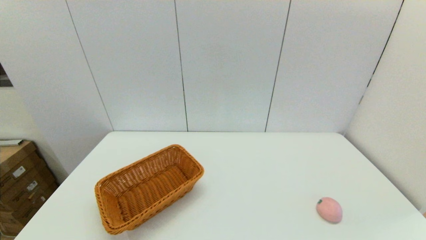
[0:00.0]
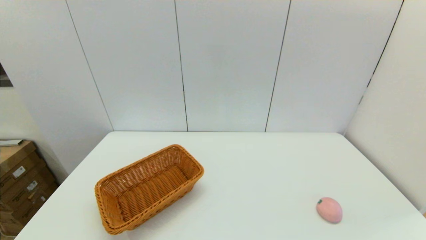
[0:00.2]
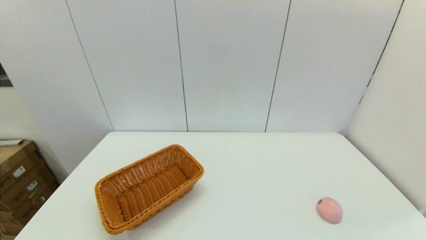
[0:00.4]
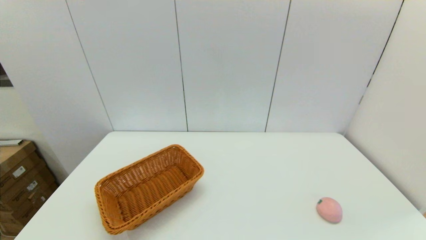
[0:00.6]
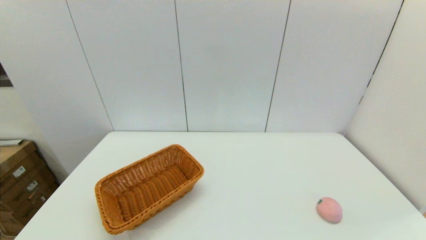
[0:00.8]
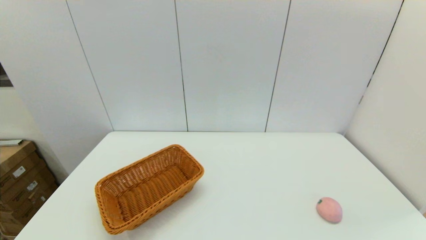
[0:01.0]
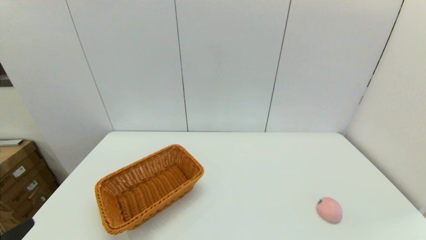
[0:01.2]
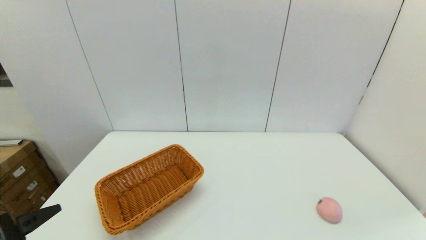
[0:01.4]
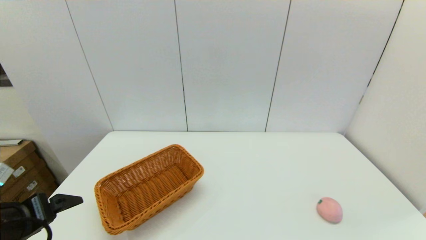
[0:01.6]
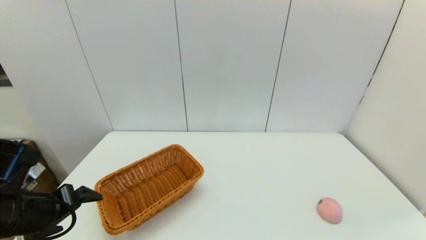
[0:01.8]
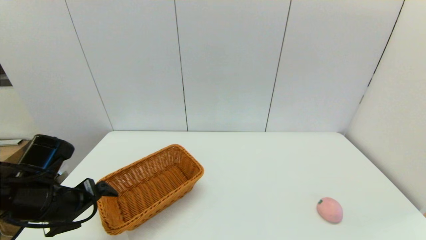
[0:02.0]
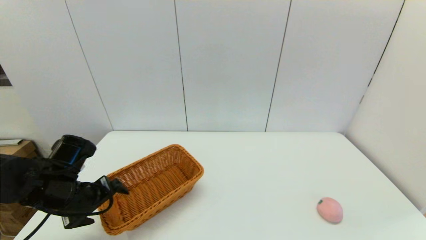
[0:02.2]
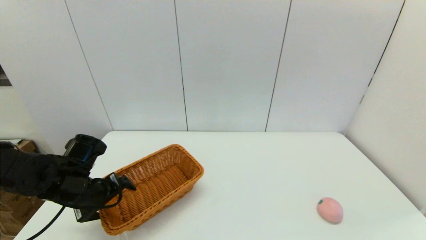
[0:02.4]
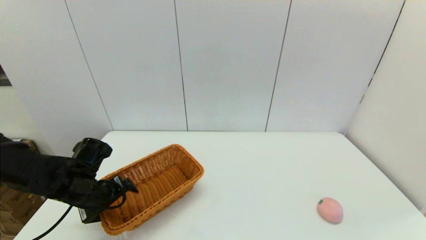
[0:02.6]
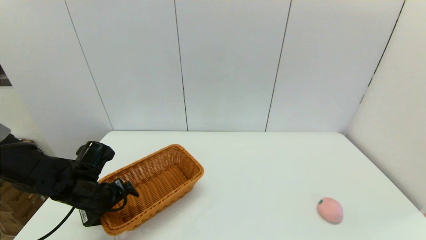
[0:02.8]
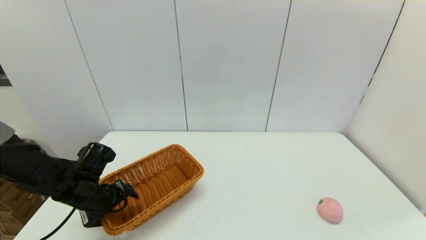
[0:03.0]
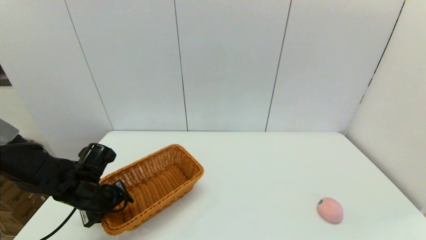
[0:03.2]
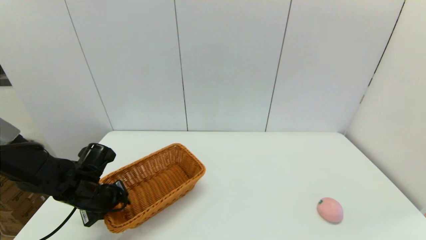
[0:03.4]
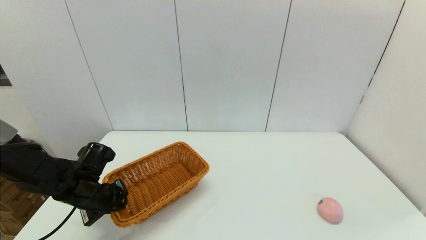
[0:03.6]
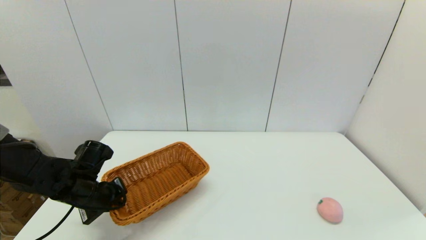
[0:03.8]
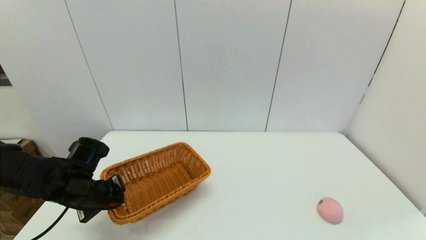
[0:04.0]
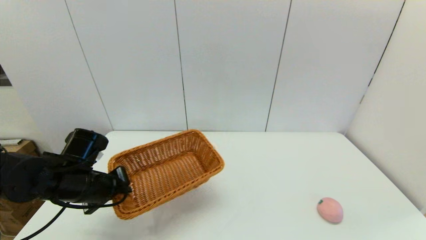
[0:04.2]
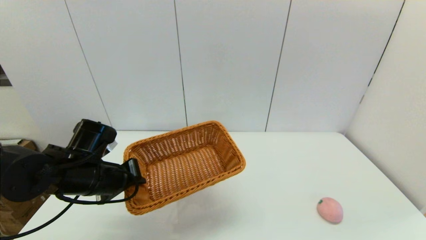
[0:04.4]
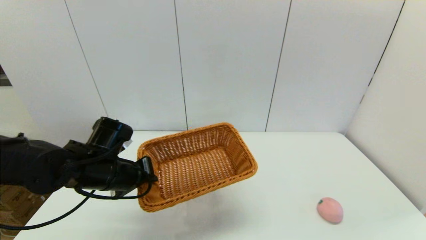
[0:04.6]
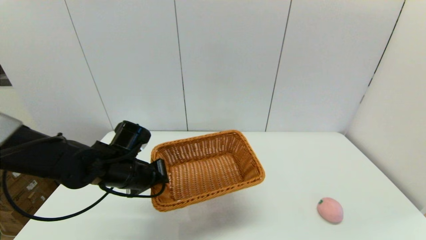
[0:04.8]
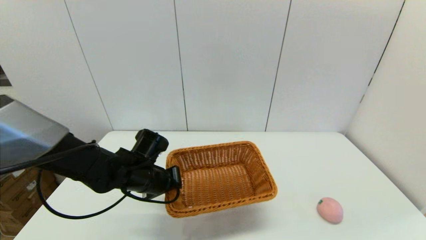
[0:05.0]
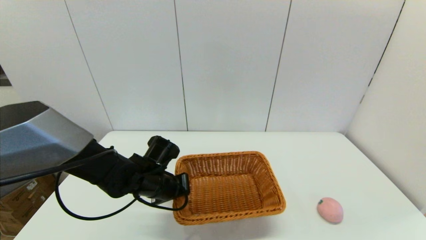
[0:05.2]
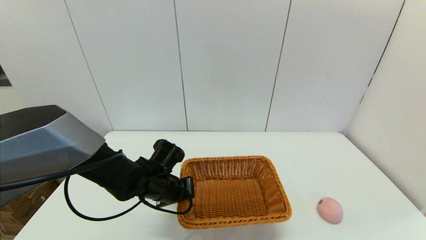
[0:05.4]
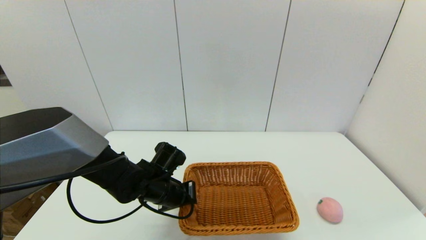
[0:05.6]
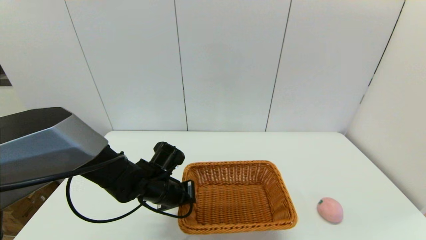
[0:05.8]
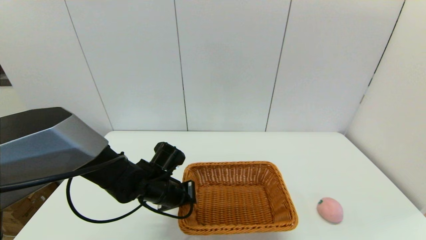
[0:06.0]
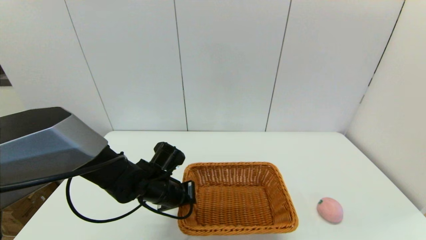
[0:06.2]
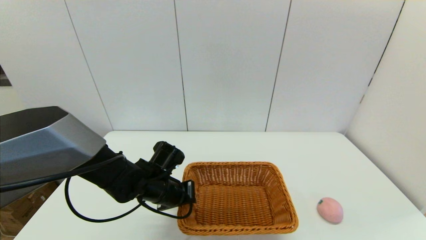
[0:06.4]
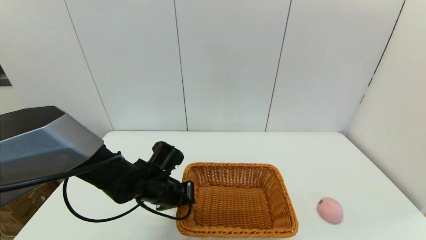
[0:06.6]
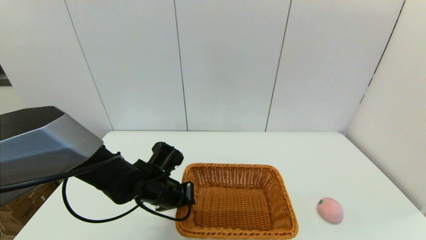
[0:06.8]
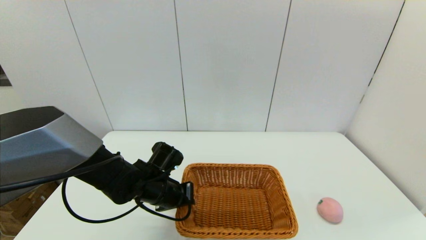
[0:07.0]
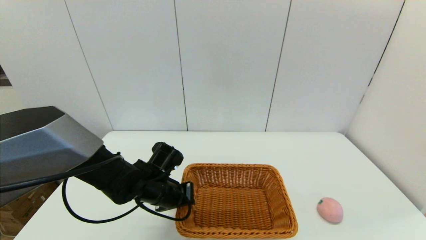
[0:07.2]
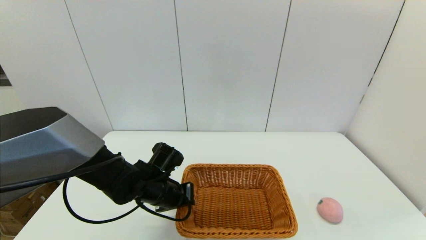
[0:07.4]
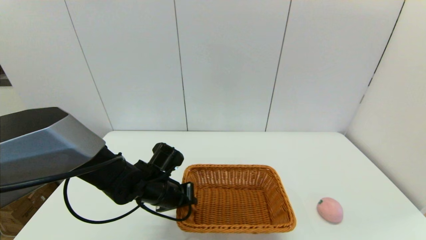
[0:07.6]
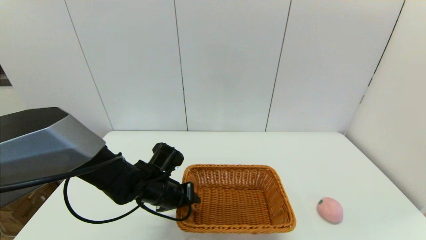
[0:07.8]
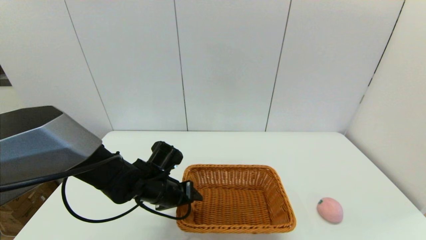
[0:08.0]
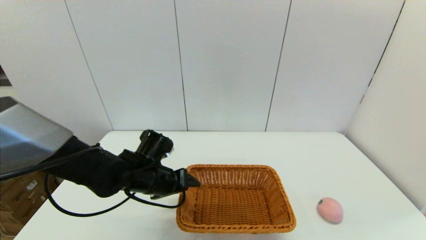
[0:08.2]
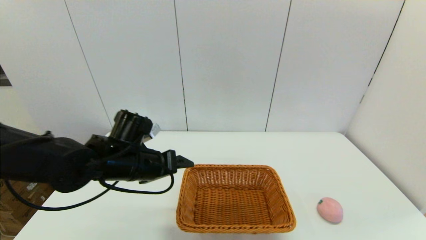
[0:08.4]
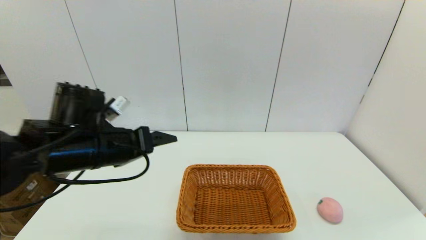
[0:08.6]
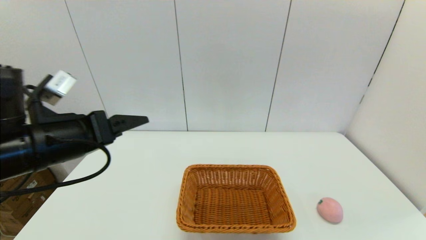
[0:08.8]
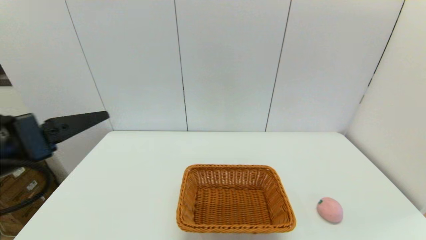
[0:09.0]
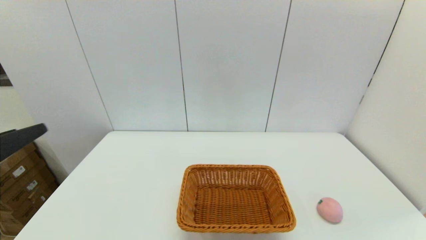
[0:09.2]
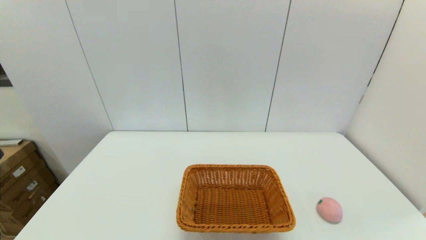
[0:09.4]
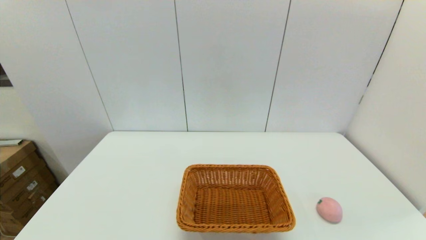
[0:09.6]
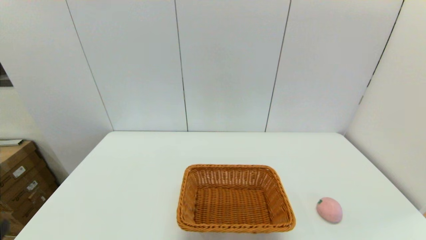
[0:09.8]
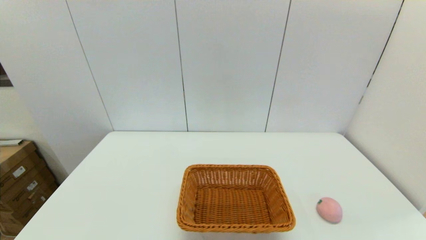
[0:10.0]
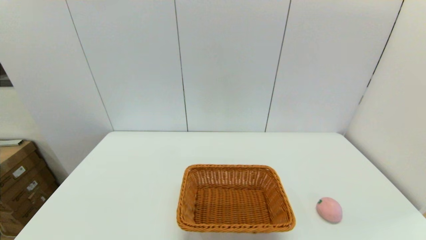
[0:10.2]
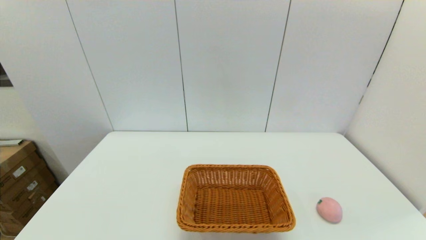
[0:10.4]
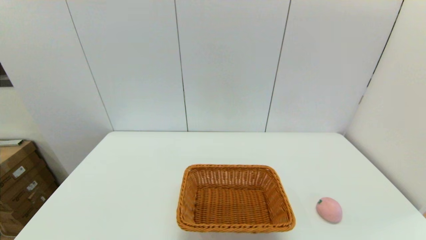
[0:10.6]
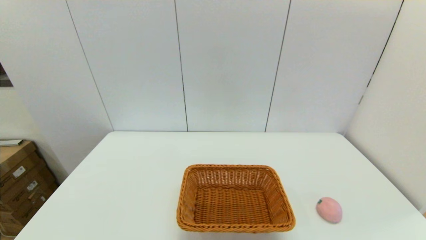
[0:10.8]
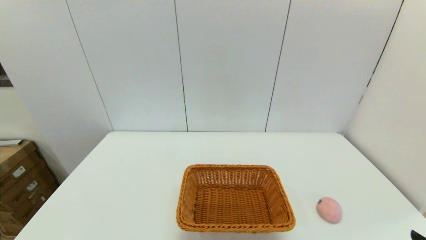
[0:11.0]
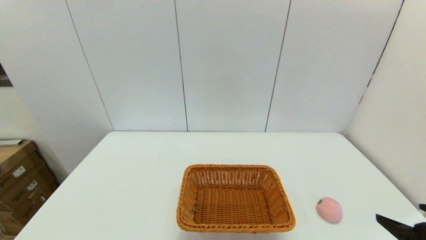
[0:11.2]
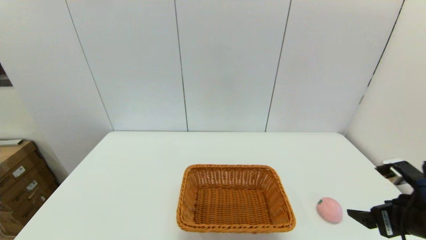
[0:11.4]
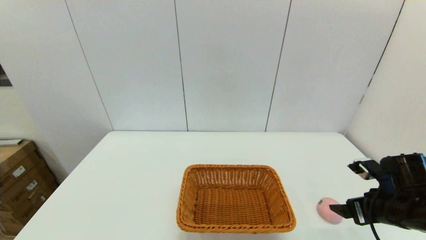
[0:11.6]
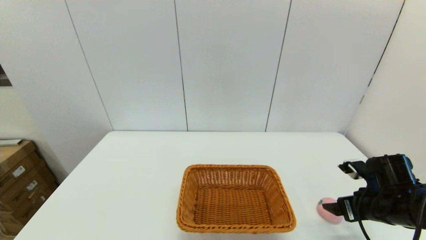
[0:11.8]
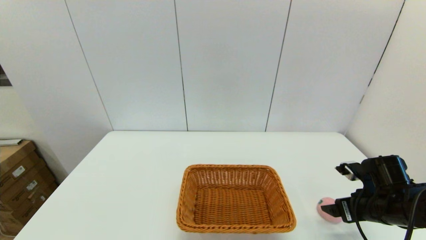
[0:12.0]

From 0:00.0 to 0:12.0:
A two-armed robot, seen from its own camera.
Step, from 0:00.0 to 0:03.6: Grasp the light basket with the left gripper.
Step, from 0:03.8 to 0:07.6: Place the light basket on the middle of the table with the left gripper.
From 0:00.0 to 0:01.6: The left gripper is displaced forward and upward by some 15 cm.
From 0:01.6 to 0:03.0: The left gripper travels forward and downward by approximately 15 cm.
From 0:03.0 to 0:04.4: The left gripper heads upward, covering roughly 10 cm, and closes.
From 0:04.4 to 0:06.0: The left gripper shifts about 15 cm to the right and downward.
From 0:06.0 to 0:07.6: The two grippers keep their place.
From 0:07.6 to 0:09.0: The left gripper moves upward, backward and to the left, roughly 30 cm, and opens its fingers.
From 0:09.0 to 0:10.4: The left gripper travels downward and backward by roughly 25 cm.
From 0:10.4 to 0:12.0: The right gripper goes approximately 25 cm forward.

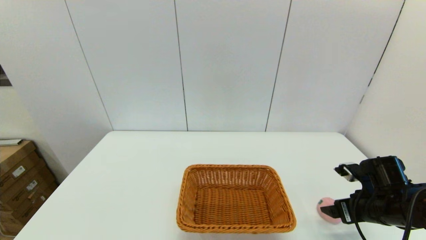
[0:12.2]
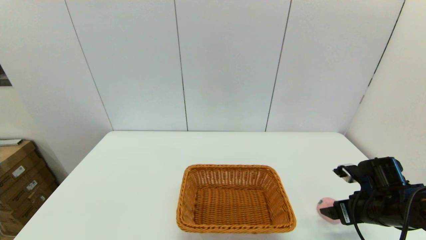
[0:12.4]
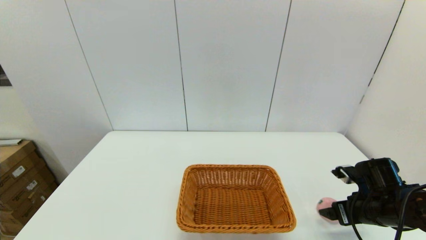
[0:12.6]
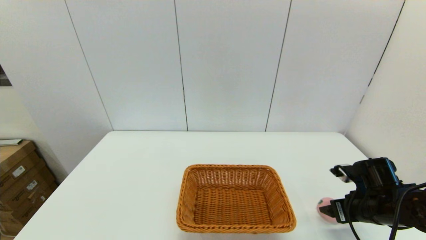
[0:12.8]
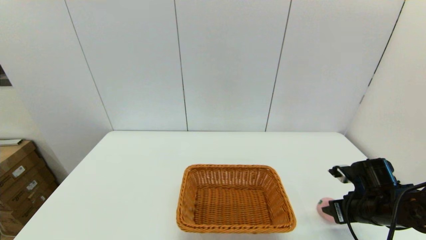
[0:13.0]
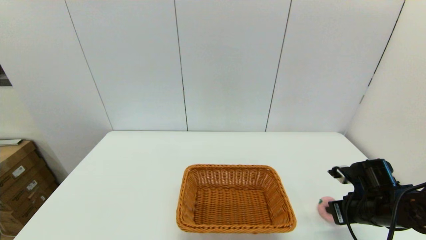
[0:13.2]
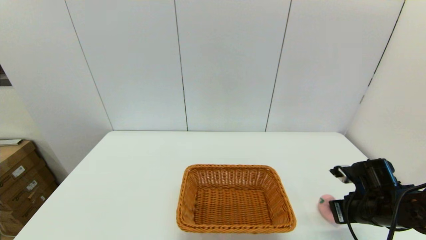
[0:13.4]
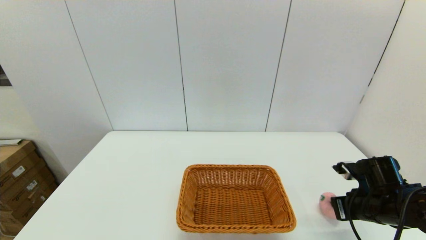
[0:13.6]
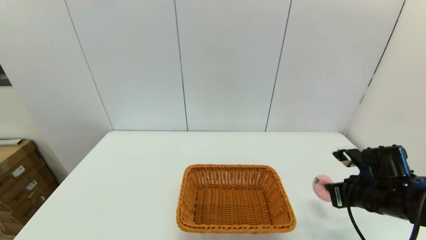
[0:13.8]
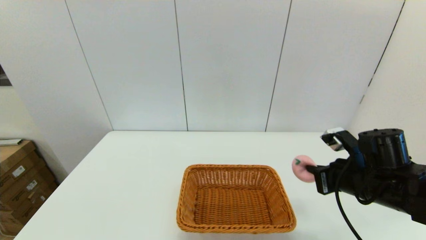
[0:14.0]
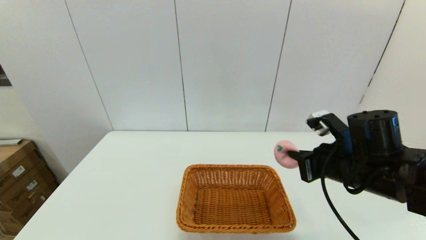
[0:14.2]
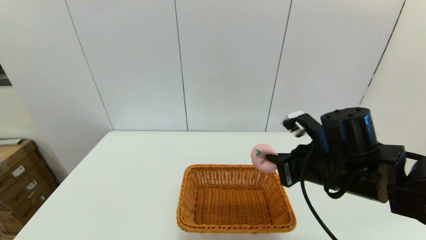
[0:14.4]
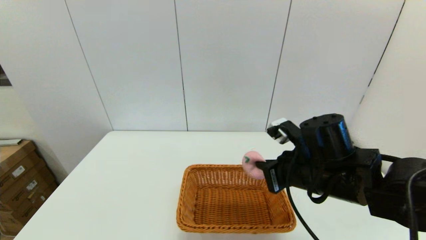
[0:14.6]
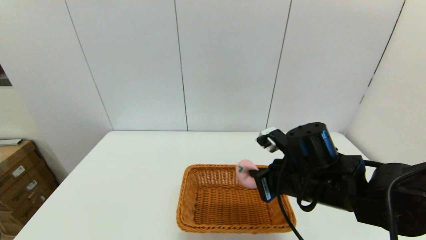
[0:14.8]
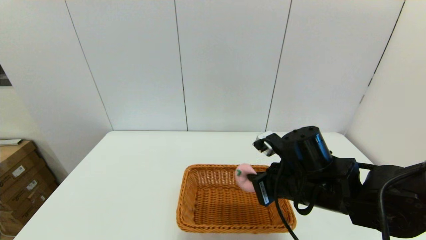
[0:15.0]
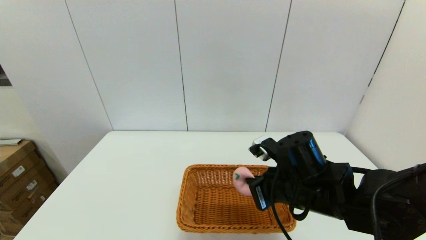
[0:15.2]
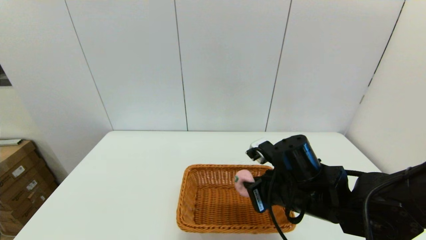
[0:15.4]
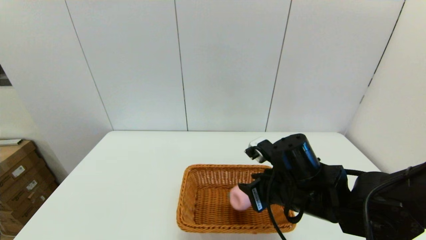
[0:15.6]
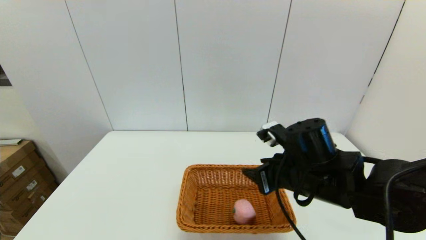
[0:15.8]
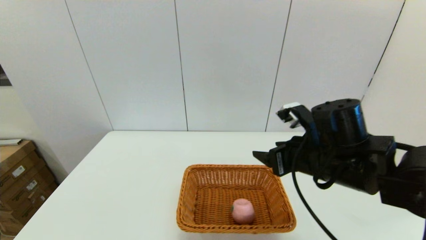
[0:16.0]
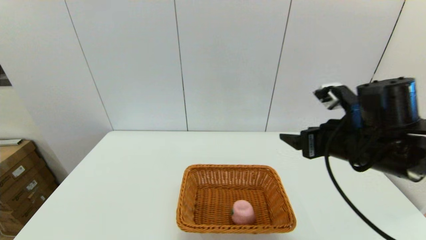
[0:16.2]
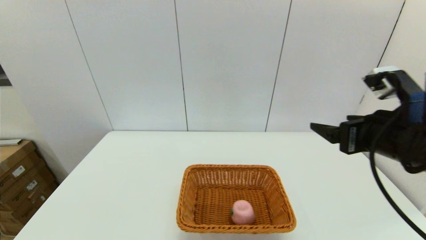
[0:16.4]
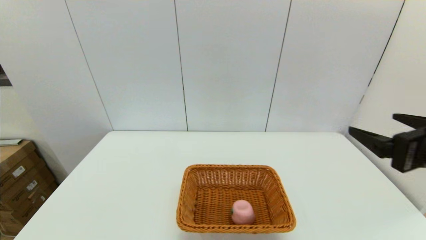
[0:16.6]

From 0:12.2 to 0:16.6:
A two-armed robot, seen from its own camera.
Step, from 0:13.4 to 0:15.8: Place the peach into the light basket with the right gripper.
From 0:12.2 to 0:13.6: The right gripper closes.
From 0:13.6 to 0:15.2: The right gripper moves to the left, some 20 cm.
From 0:15.2 to 0:16.6: The right gripper moves to the right, upward and backward, about 20 cm, and opens.
